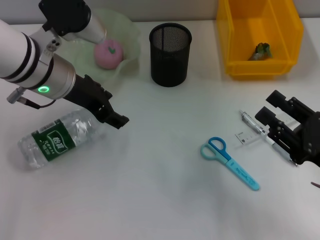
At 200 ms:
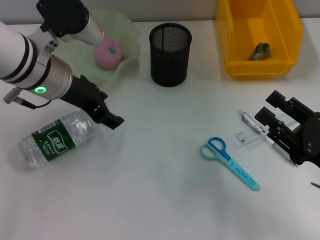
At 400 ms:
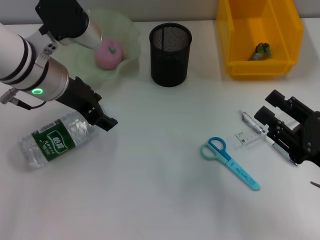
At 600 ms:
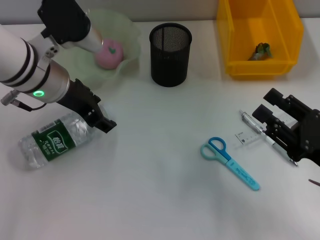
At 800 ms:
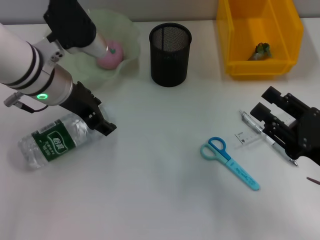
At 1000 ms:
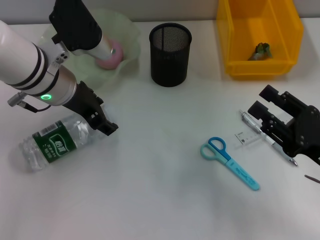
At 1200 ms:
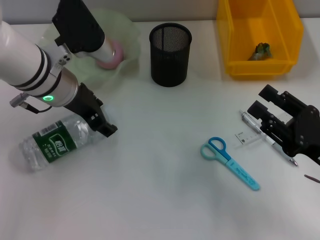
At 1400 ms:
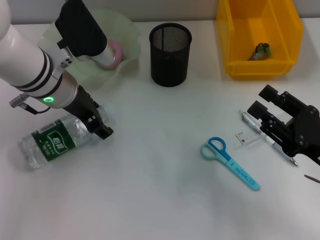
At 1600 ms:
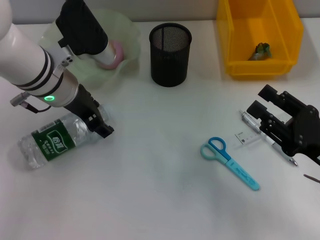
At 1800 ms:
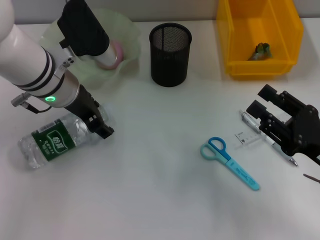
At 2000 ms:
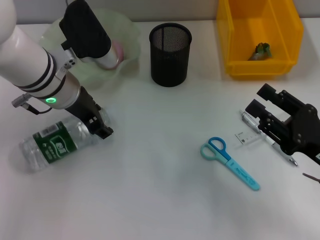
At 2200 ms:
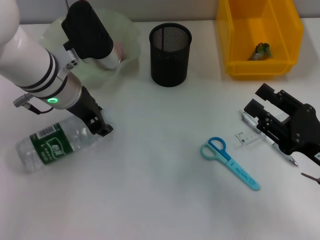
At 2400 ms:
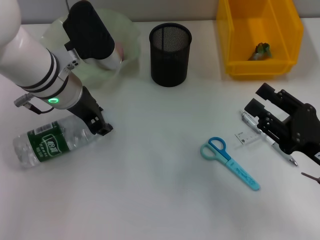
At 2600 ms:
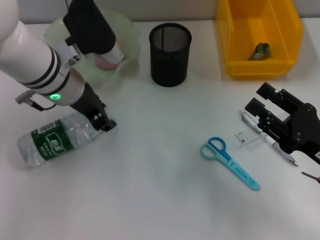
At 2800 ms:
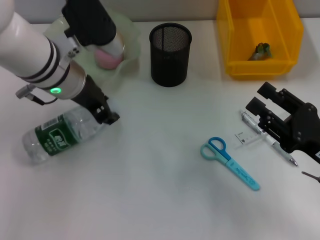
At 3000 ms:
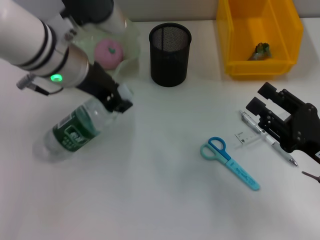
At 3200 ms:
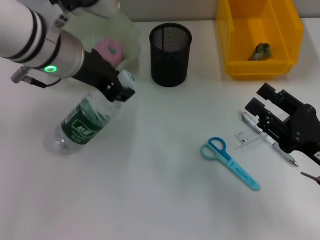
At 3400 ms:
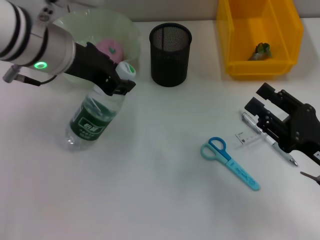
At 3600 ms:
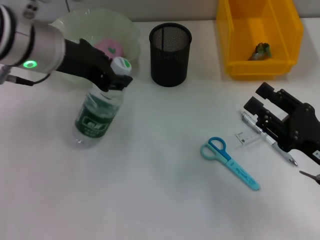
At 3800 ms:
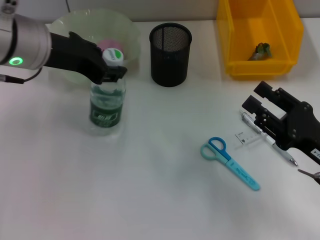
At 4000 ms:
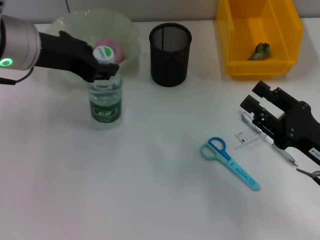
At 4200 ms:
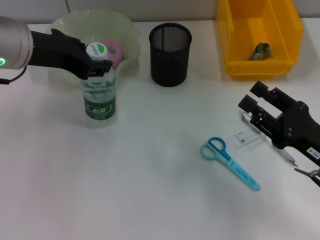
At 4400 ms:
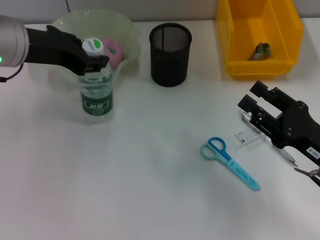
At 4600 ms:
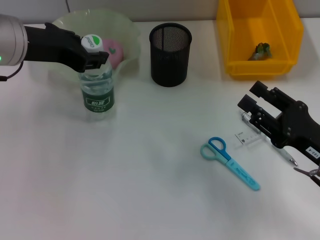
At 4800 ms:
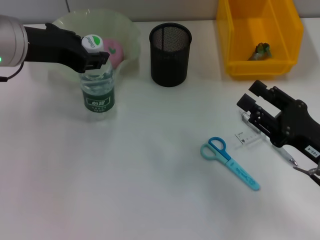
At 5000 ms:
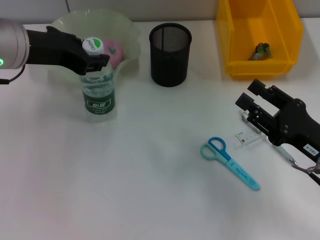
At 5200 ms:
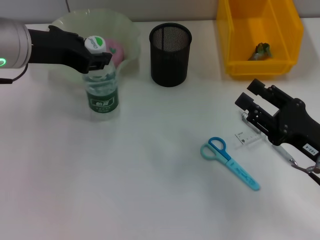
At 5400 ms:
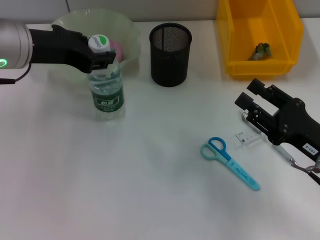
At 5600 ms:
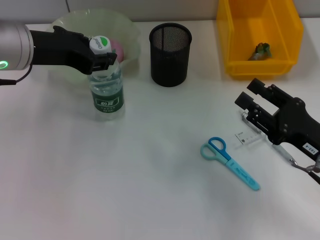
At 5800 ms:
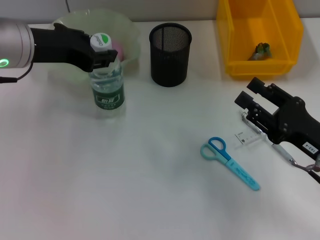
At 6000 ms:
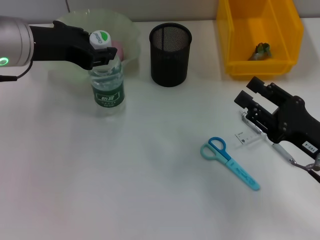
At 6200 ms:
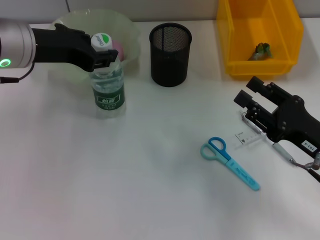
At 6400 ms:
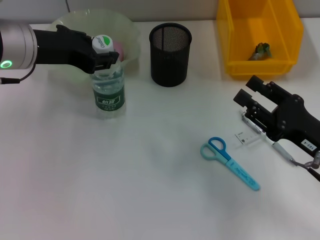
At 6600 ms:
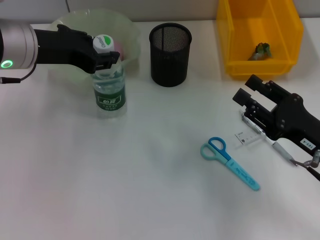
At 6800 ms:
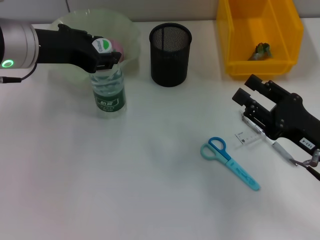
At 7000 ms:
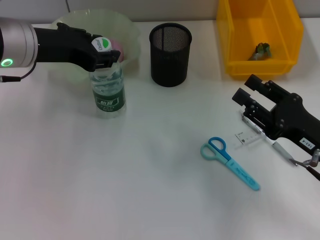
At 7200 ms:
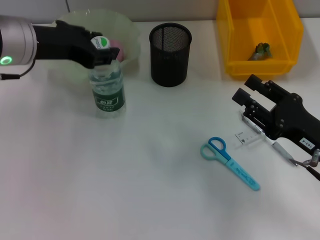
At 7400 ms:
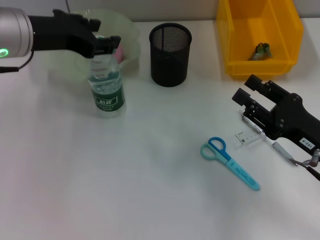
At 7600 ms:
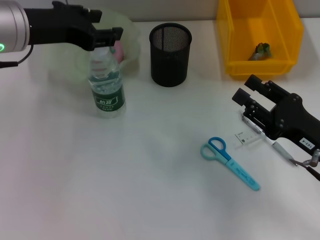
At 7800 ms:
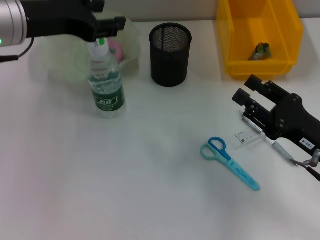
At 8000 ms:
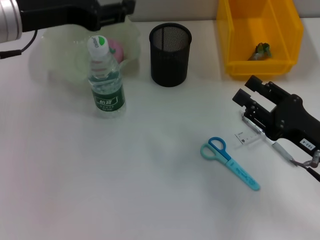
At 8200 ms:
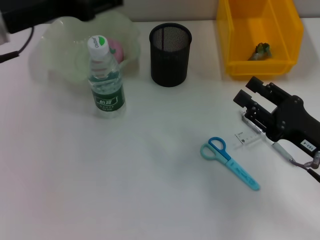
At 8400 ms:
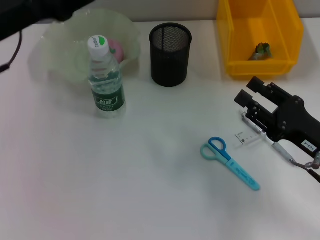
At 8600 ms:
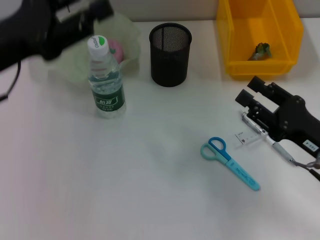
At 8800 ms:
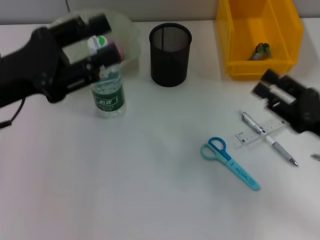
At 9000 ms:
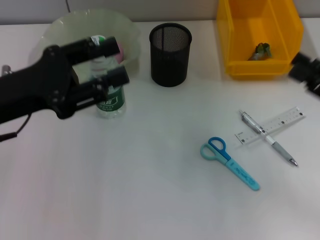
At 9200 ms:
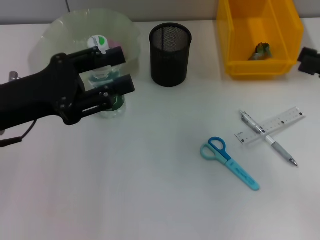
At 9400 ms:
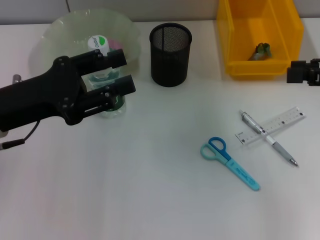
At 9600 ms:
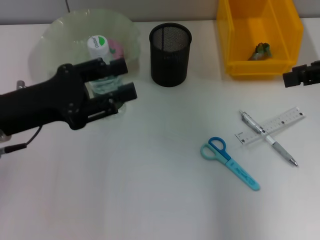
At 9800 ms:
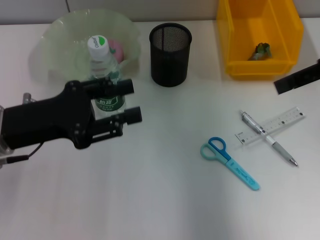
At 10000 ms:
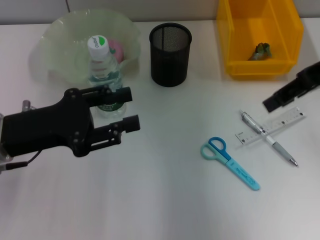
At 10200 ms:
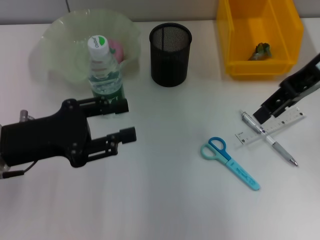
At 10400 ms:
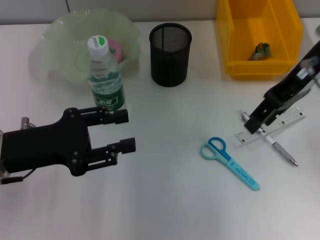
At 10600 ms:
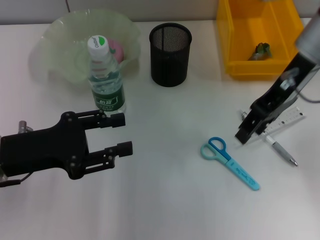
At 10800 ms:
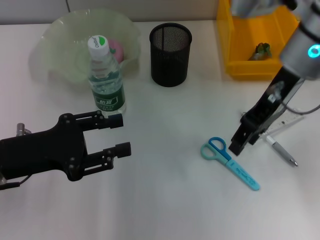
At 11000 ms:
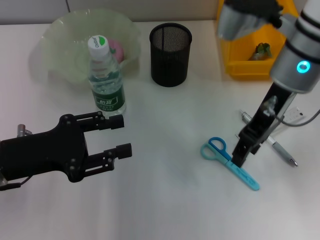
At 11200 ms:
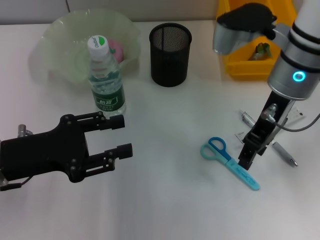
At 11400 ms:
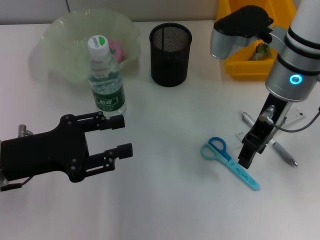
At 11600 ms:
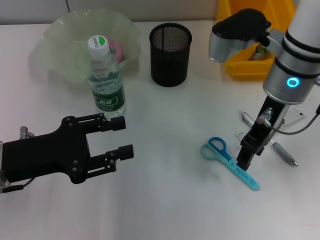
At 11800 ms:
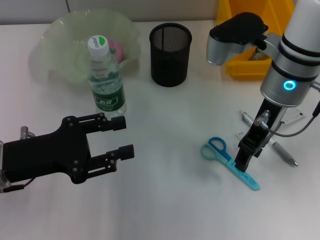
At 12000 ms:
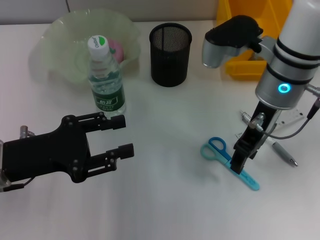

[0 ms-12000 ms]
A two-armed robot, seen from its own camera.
Step, 0 ms to 2600 ms: Grab the water bottle with the left hand.
Step, 2800 ms to 7200 ms: Place the water bottle on the table with the left hand.
0 ms to 1600 ms: The grippers make only small movements.
1600 ms to 3000 ms: The left gripper closes its fingers.
3000 ms to 4400 ms: The left gripper travels to the left by some 5 cm.
4400 ms to 7600 ms: There are only small adjustments of the grippers.
7600 ms to 9000 ms: The left gripper travels backward and downward by about 10 cm. Meanwhile the right gripper travels to the right and upward by approximately 10 cm.
9000 ms to 10400 ms: The right gripper moves forward, to the left and upward, about 20 cm. Meanwhile the left gripper moves roughly 5 cm.
10400 ms to 12000 ms: The right gripper shifts some 10 cm downward and to the left.

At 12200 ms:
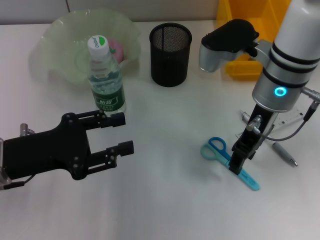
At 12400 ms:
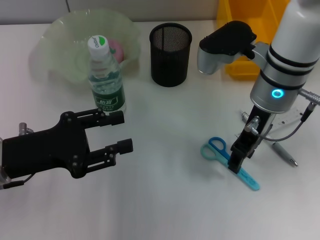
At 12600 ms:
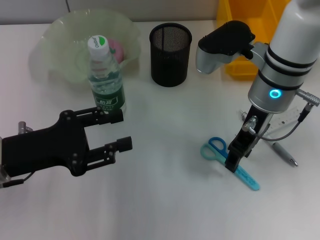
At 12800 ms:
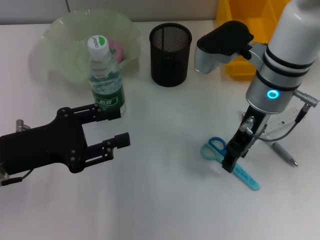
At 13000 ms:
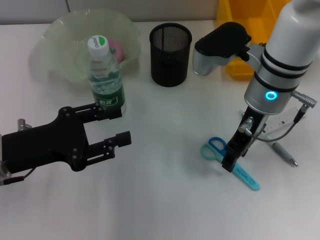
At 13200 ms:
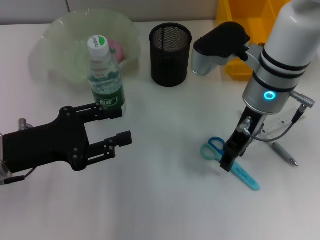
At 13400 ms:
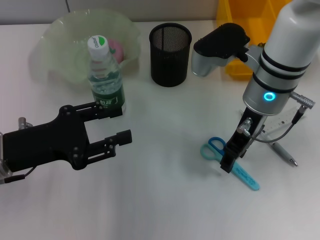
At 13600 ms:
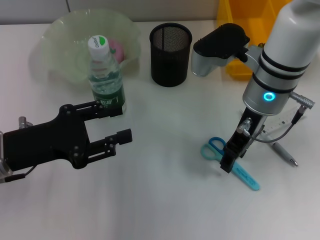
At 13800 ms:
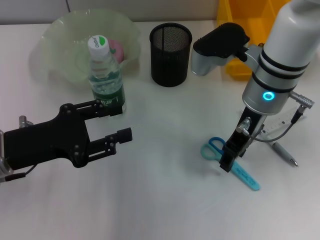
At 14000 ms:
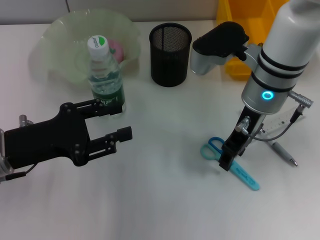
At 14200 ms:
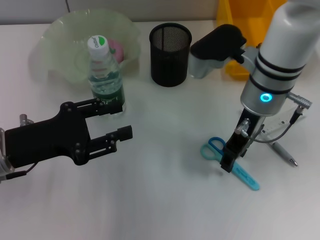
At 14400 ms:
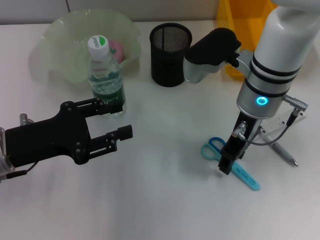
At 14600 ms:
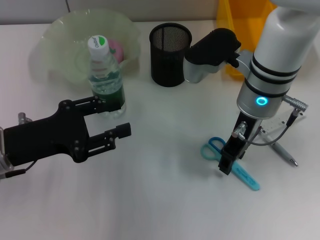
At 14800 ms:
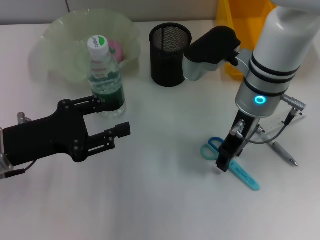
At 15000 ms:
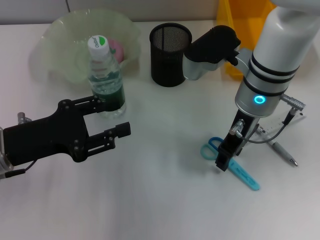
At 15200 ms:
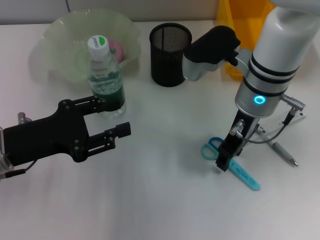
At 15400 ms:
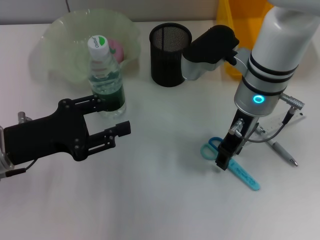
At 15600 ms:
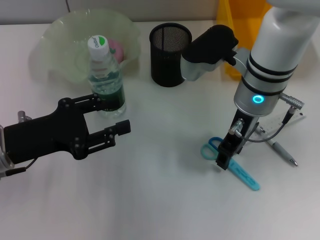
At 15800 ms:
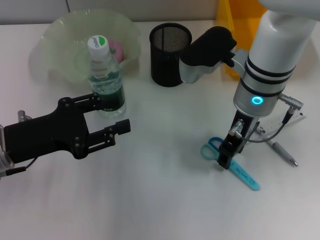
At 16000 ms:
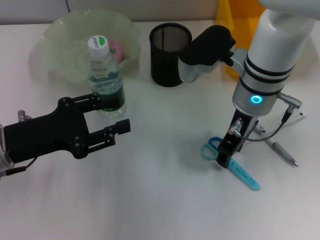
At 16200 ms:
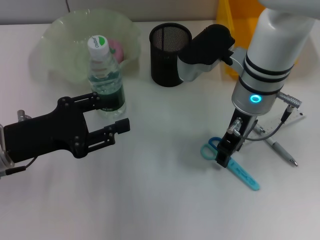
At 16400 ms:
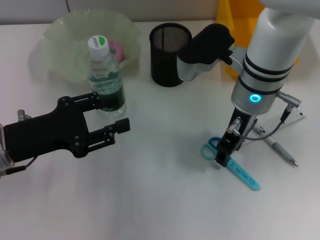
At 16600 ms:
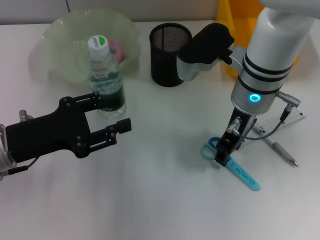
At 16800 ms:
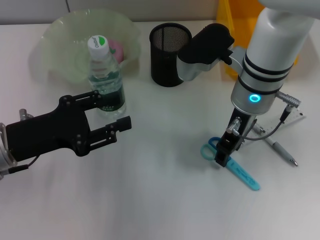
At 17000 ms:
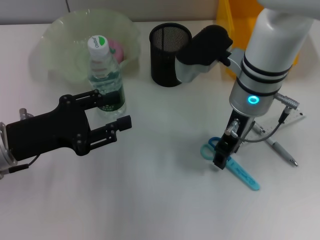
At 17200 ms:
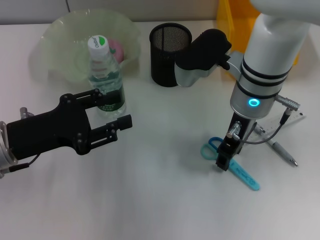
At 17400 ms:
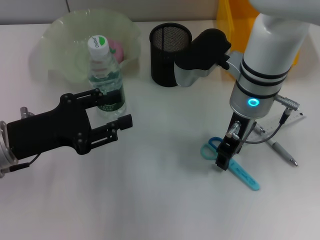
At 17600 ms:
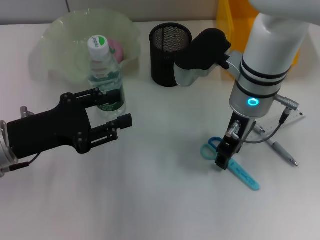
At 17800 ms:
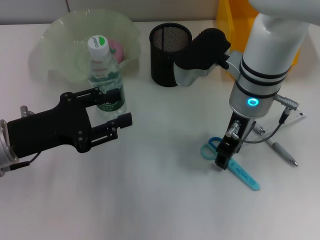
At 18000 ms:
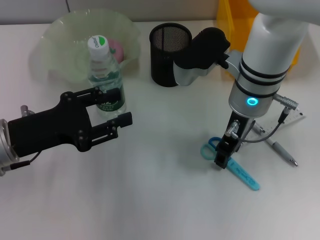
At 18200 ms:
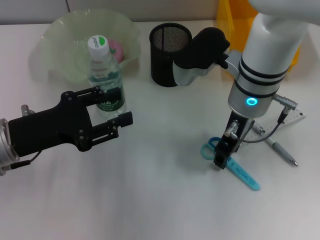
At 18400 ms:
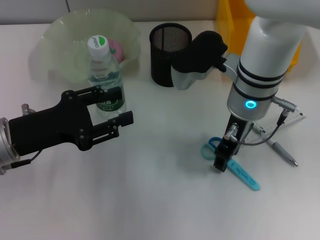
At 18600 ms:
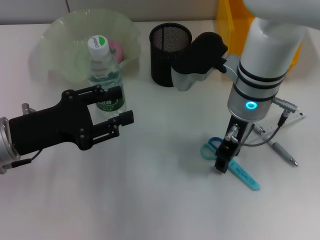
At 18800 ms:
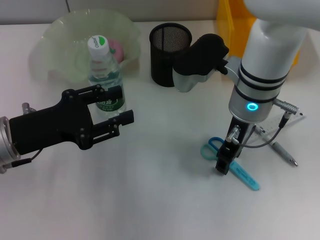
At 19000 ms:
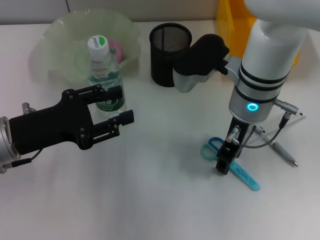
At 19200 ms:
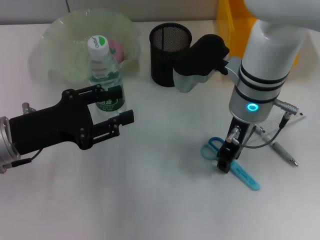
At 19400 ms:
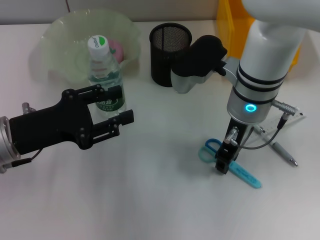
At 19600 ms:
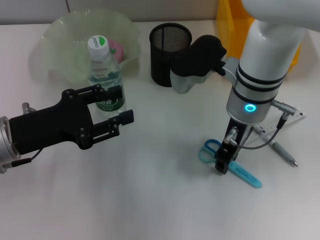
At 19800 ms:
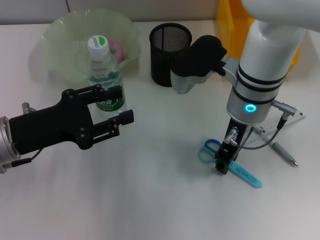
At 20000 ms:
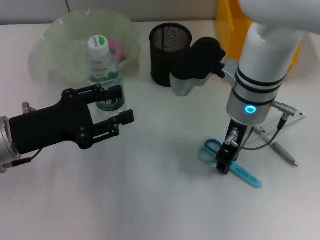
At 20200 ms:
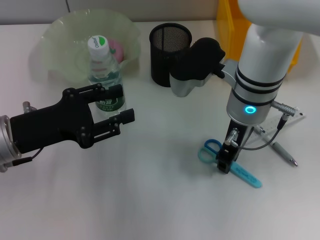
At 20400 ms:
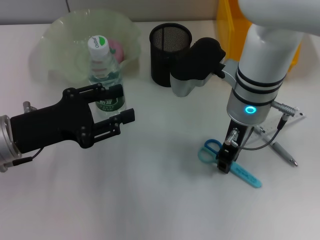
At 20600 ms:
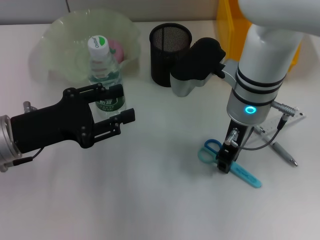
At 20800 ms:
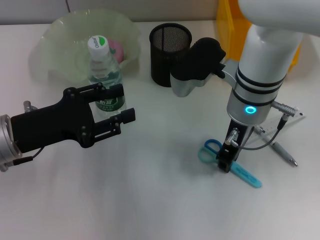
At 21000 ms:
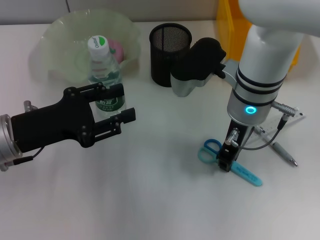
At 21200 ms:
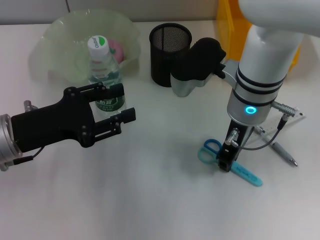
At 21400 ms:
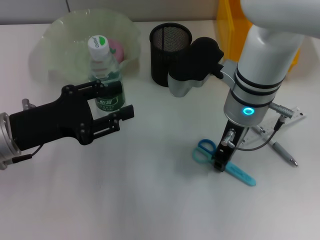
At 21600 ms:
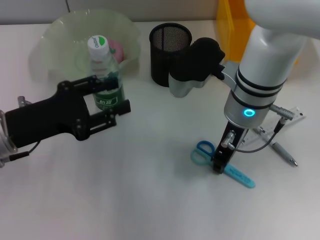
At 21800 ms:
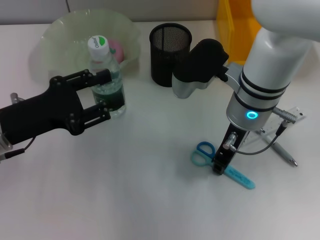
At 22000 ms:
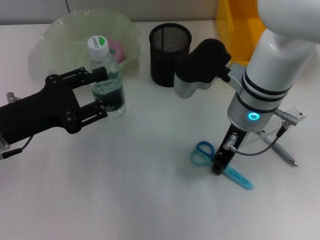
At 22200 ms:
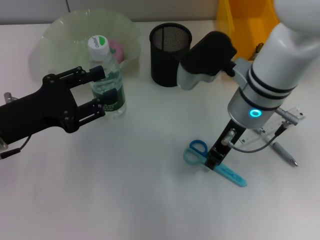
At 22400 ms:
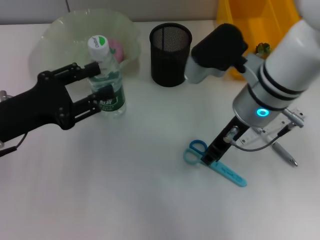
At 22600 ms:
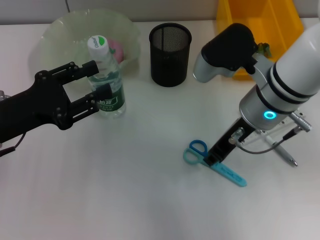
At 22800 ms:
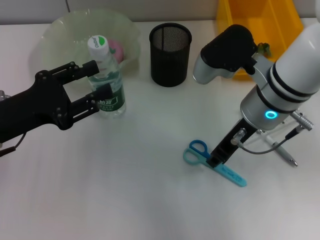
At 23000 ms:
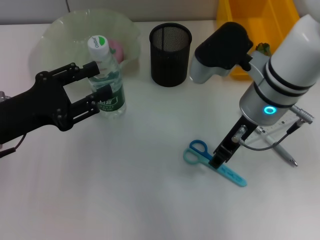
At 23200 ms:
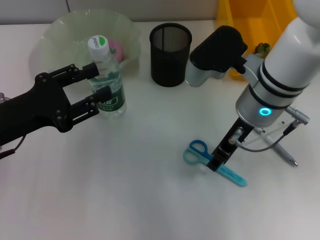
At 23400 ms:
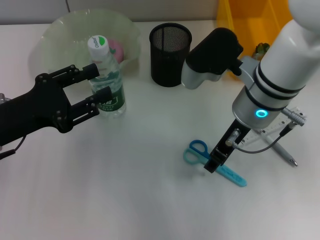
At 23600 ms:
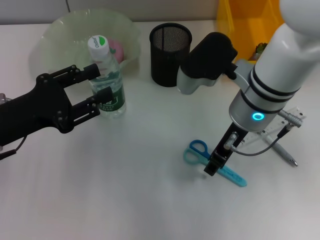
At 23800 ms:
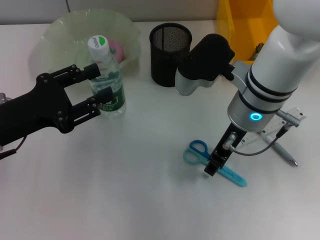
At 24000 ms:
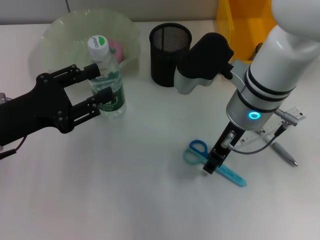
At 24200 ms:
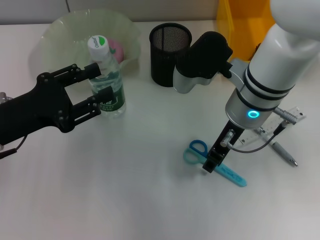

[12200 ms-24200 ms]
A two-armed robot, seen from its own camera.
Step, 12200 ms to 22400 ms: Grab the blue scissors with the right hand.
12200 ms to 13800 ms: The grippers make only small movements.
13800 ms to 15200 ms: Both grippers stay put.
15200 ms to 18200 ms: The two grippers keep their place.
18200 ms to 21200 ms: Both grippers stay put.
22600 ms to 24200 ms: There are only small adjustments of the grippers.
